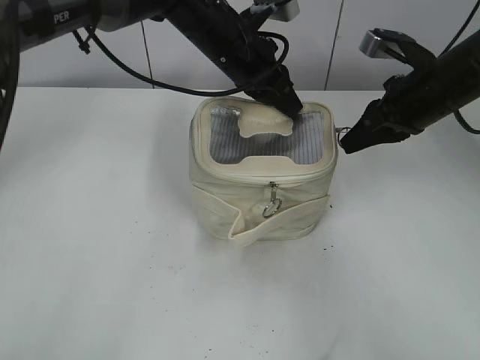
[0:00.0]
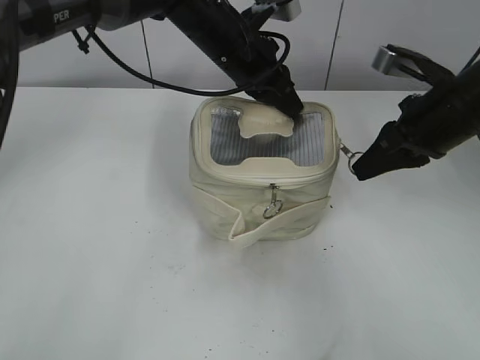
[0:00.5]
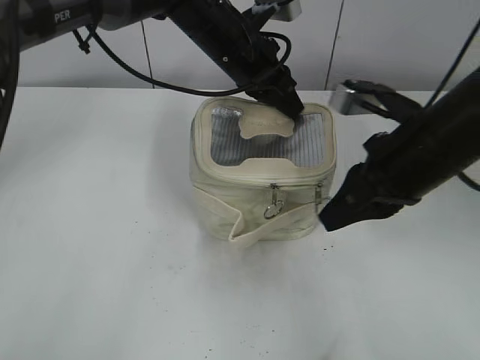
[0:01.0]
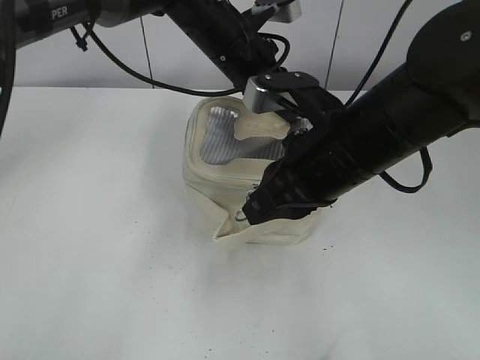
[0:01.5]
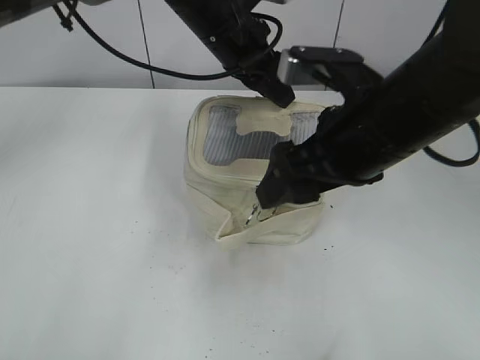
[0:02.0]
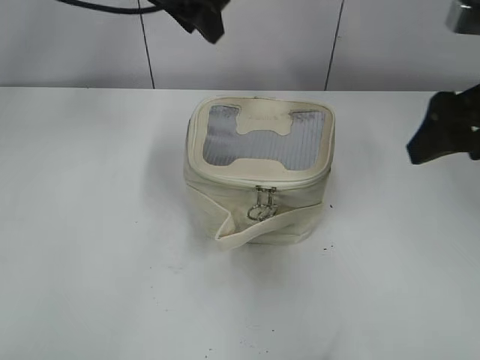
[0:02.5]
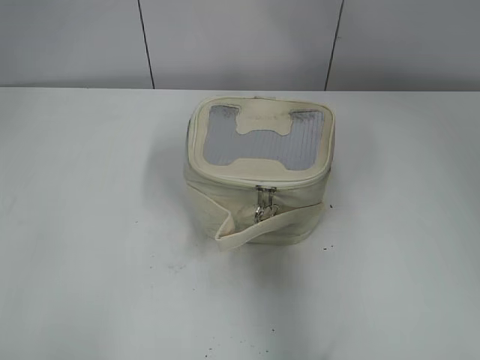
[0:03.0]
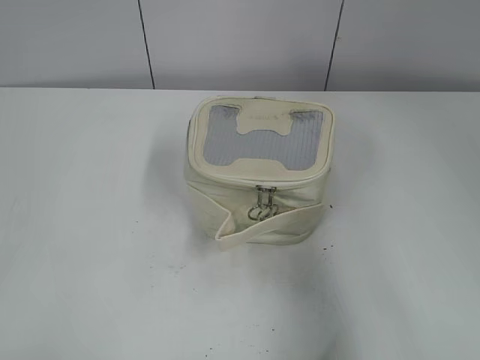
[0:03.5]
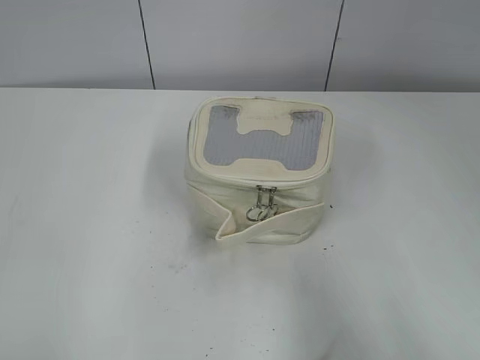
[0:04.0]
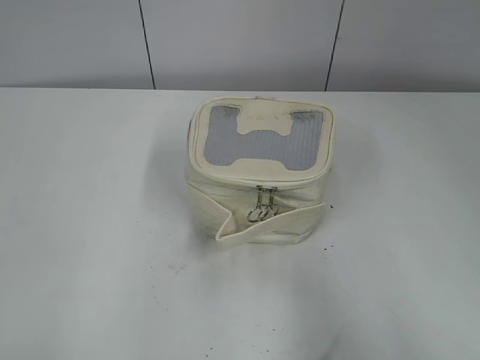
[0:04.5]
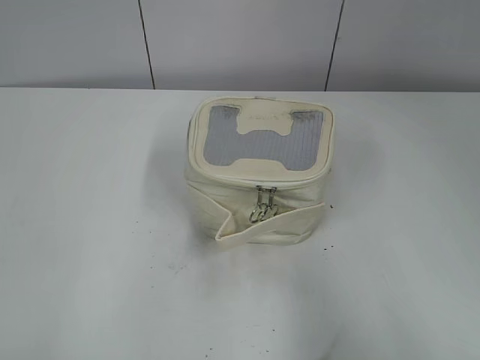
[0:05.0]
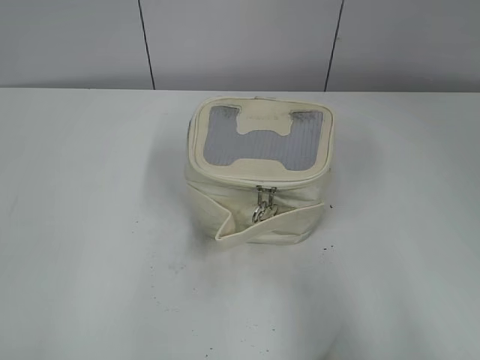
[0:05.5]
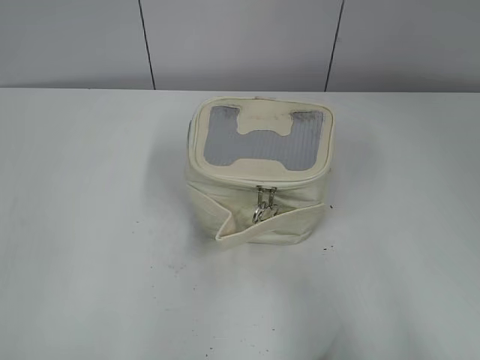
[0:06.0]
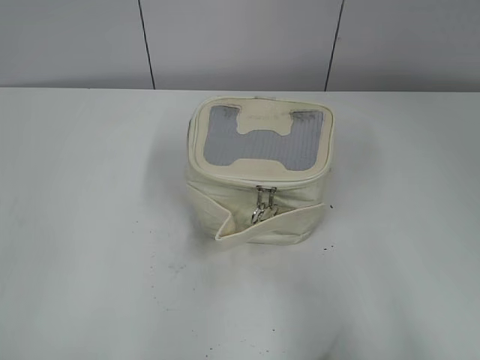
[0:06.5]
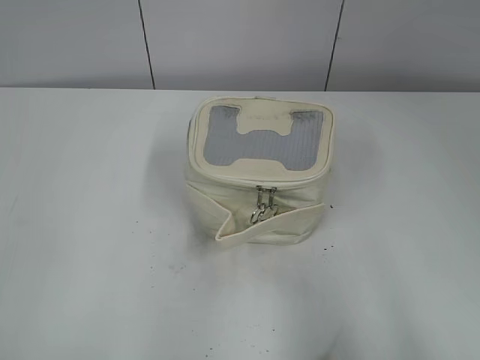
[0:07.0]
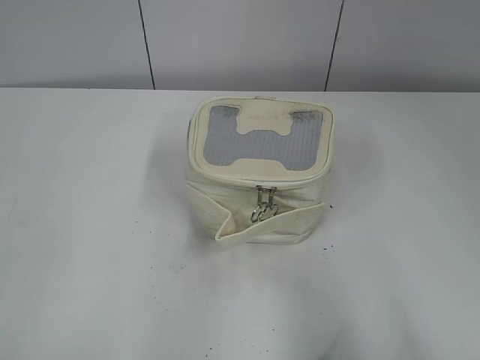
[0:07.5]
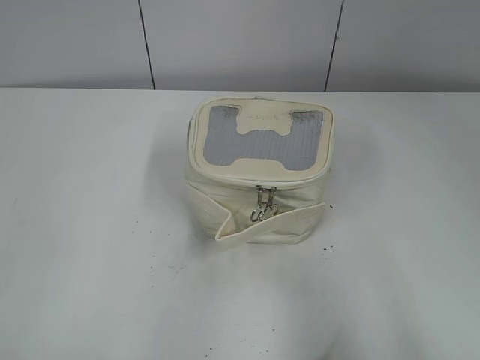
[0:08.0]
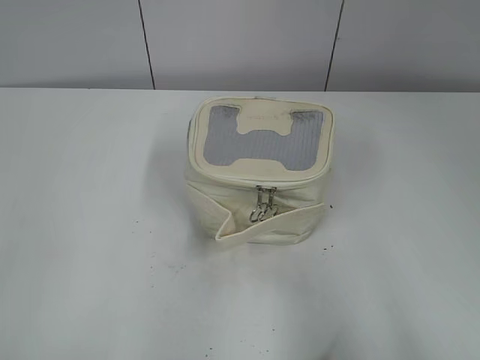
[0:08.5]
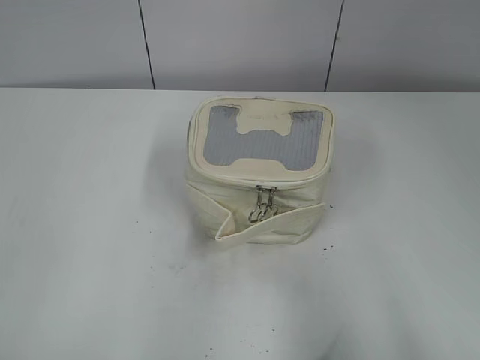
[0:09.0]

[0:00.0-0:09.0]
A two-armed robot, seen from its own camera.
Step, 0:00.0 to 0:02.0: Zip up the bag with your right hand.
0:00.0 to 0:02.0: The right gripper goes some 15 cm backward and to the left, and opens; the left gripper opens up.
0:02.0 to 0:04.5: The left gripper shifts roughly 50 cm backward and to the left; the right gripper shifts approximately 30 cm backward and to the right.
0:07.0 to 0:09.0: Both grippers stay put.

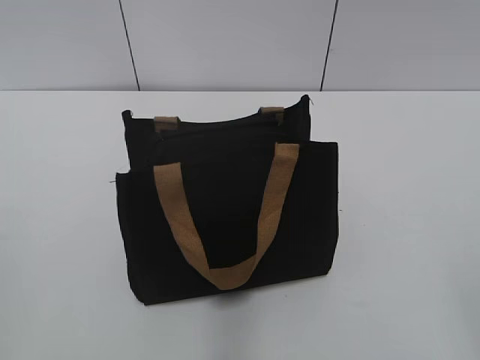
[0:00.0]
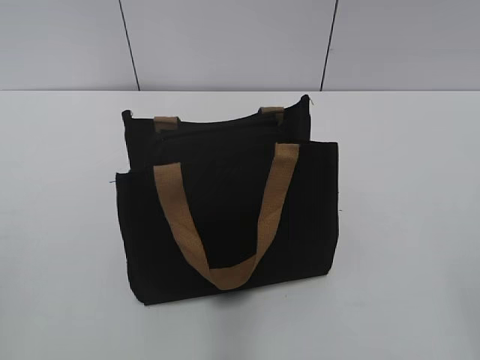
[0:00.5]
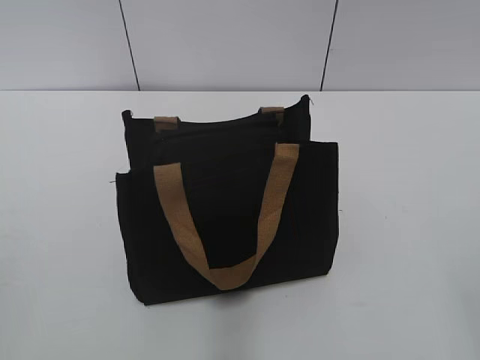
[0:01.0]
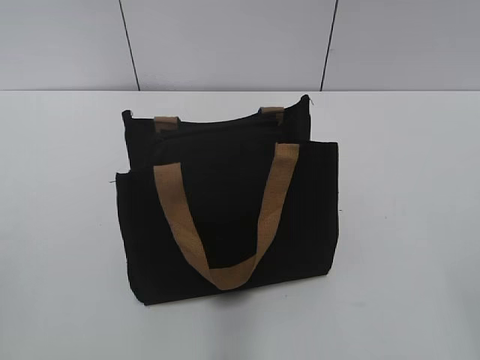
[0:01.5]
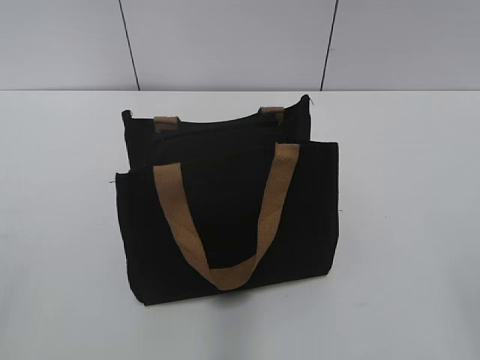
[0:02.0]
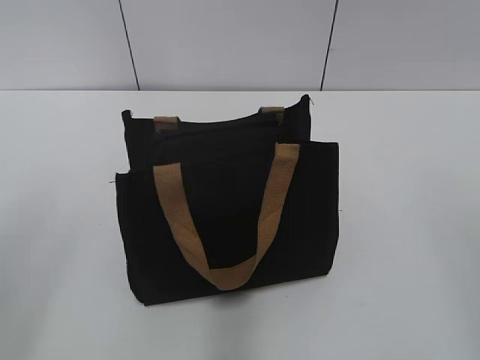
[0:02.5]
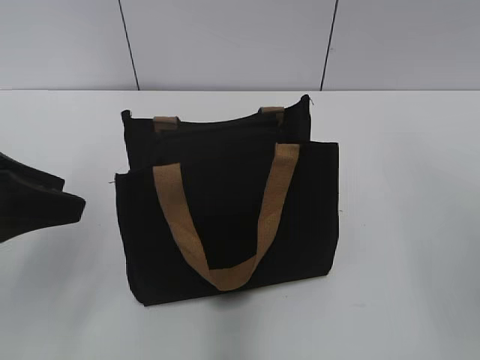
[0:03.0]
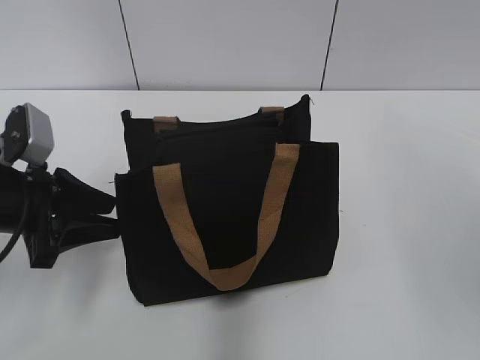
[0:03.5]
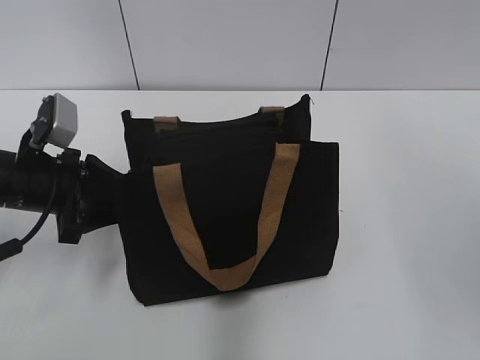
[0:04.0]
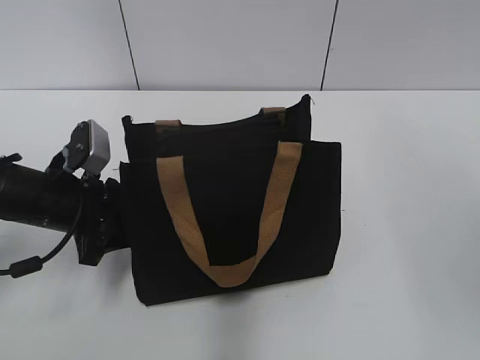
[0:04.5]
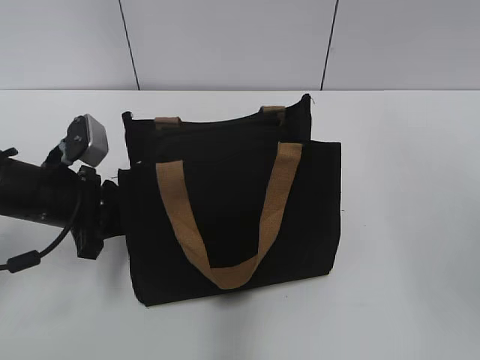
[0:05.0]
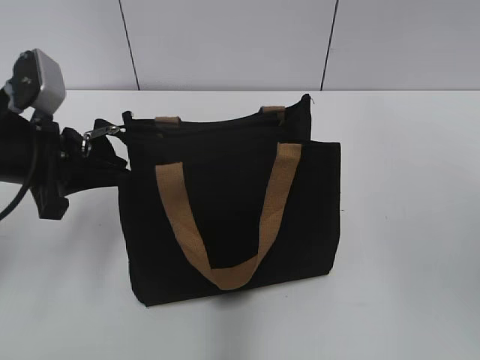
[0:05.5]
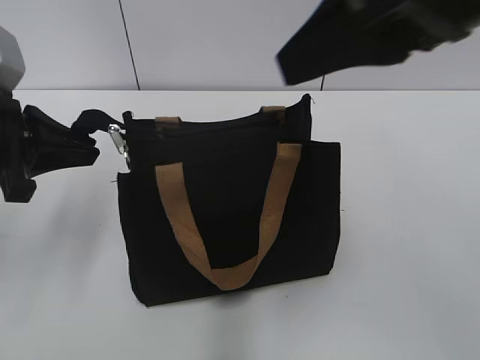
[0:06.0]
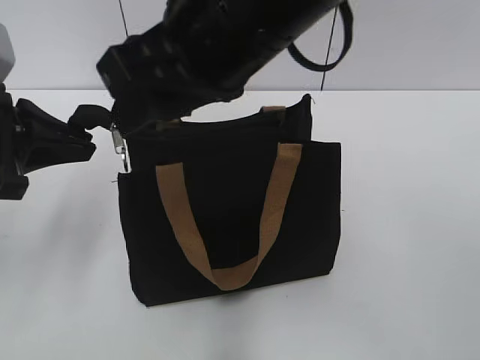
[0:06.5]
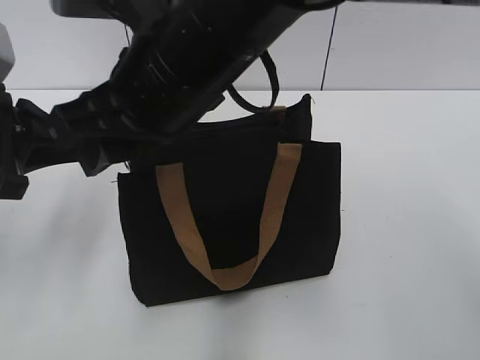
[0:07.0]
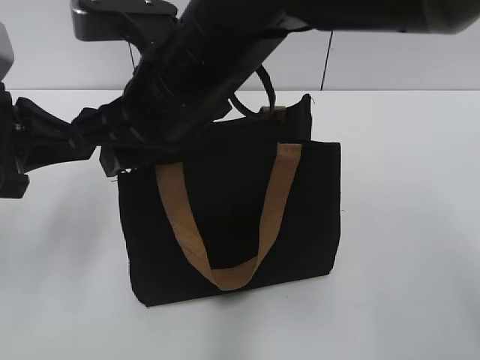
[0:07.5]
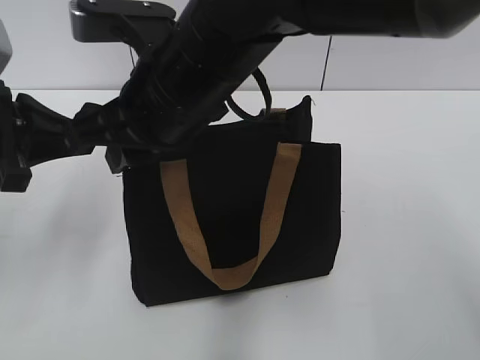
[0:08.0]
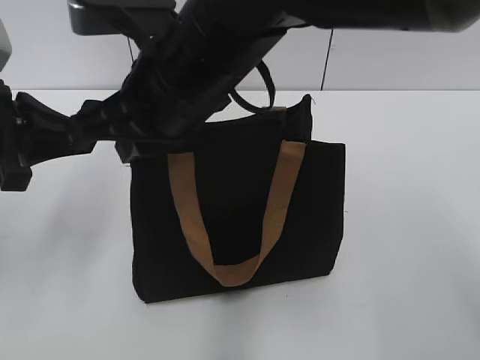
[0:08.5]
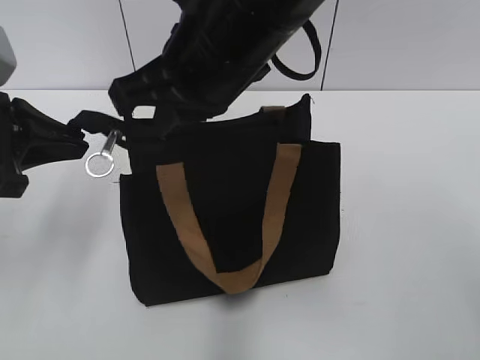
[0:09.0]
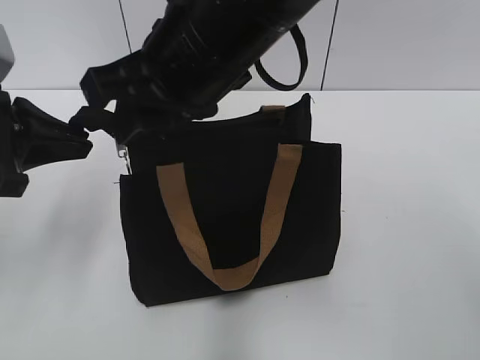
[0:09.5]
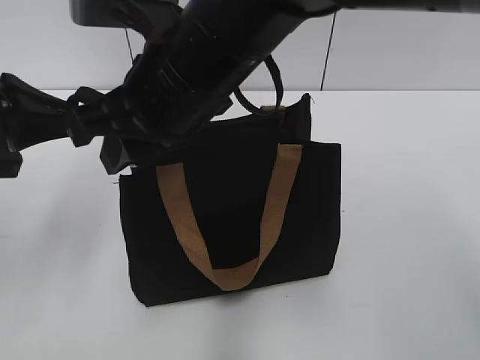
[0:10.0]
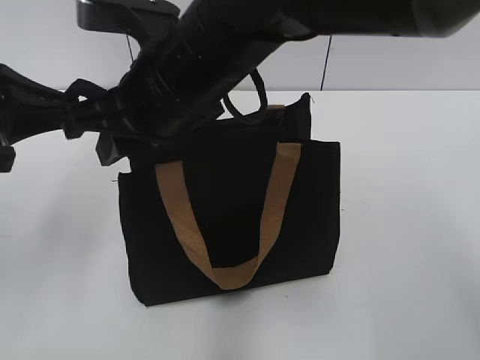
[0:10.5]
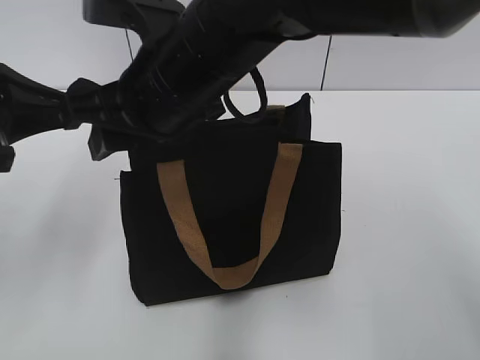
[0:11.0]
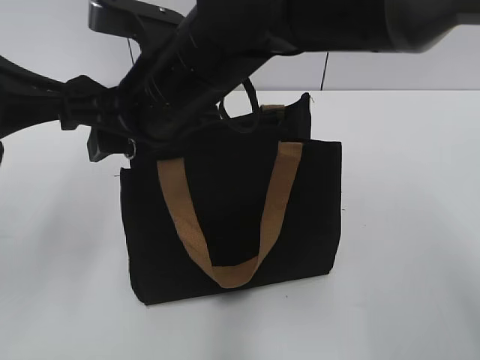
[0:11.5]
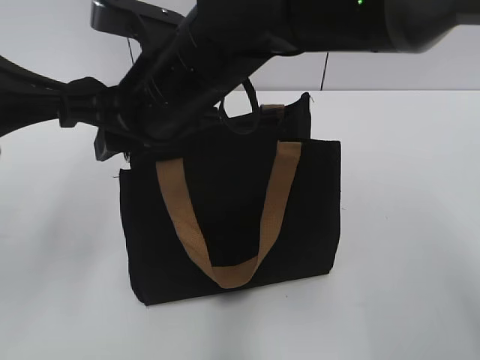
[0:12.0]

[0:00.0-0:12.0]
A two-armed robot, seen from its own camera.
0:02.0 to 0:04.0: The left gripper is displaced forward and downward by roughly 30 cm.
0:04.0 to 0:06.0: The left gripper heads upward, covering about 10 cm, and closes its fingers; the right gripper is displaced to the left by about 10 cm.
0:06.0 to 0:08.0: The right gripper shifts about 20 cm to the left and downward.
0:08.0 to 0:10.0: The right gripper closes and opens again.
0:10.0 to 0:12.0: The grippers move only a little.

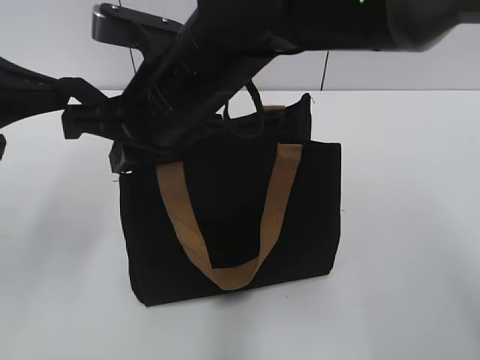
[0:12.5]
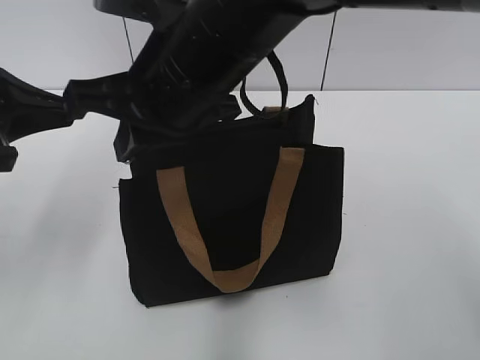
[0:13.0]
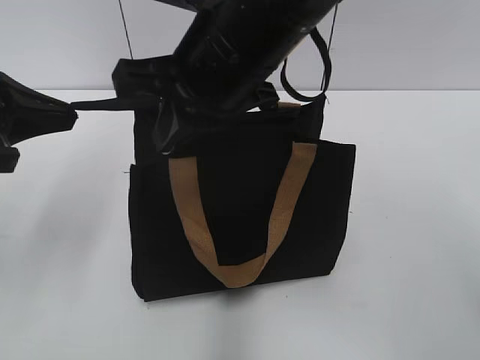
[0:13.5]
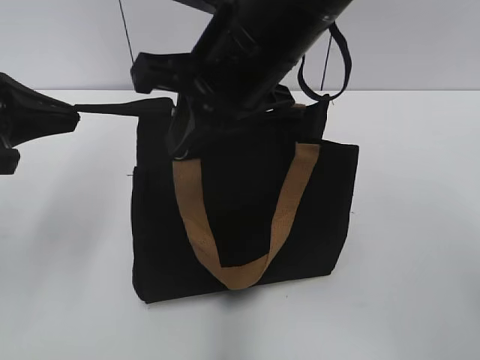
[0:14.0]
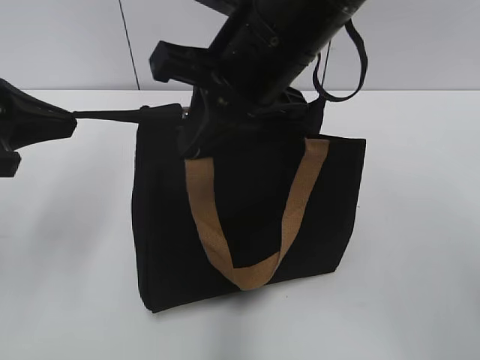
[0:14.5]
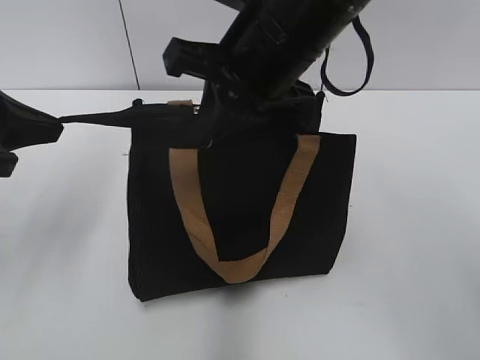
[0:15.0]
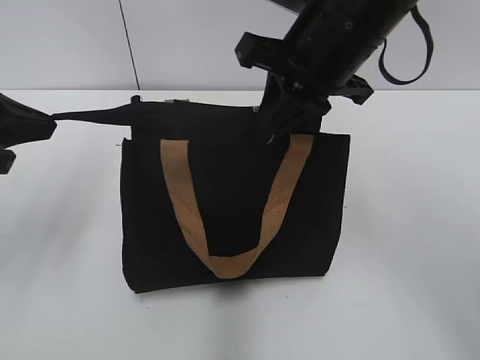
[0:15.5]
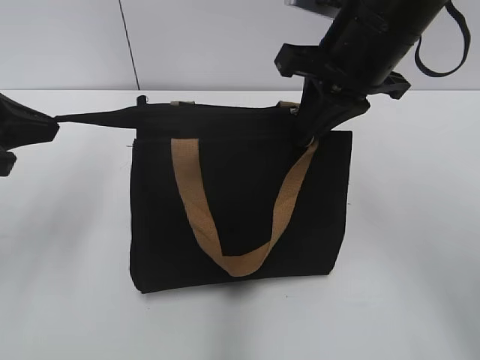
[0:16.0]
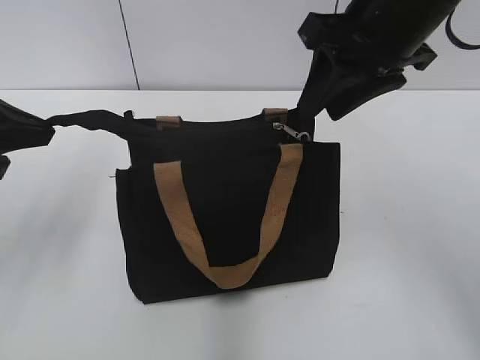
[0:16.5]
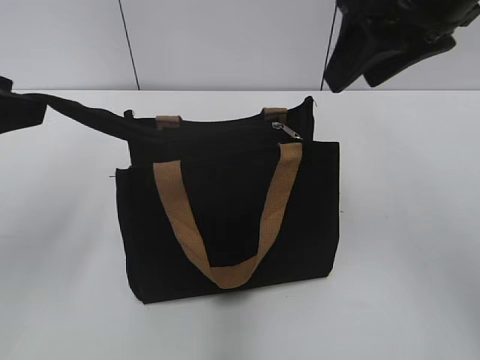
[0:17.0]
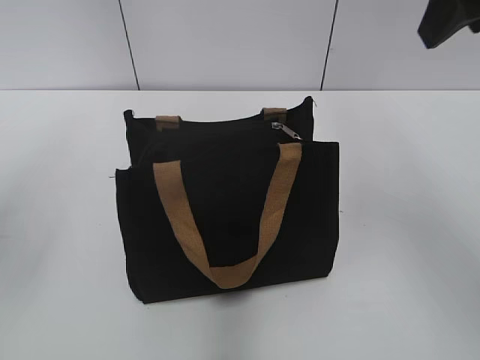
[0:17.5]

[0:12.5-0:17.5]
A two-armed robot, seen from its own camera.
Step, 0:12.5 to 0:16.0: Zip up the bag with your right hand.
Step, 0:16.5 to 0:17.0: Grab the zipper with your left hand.
0:12.5 to 0:15.0: The right gripper moves to the right, about 10 cm.
0:15.0 to 0:17.5: The left gripper travels upward by roughly 10 cm, and opens its fingers, while the right gripper shifts some 15 cm to the right and upward, and opens up.
